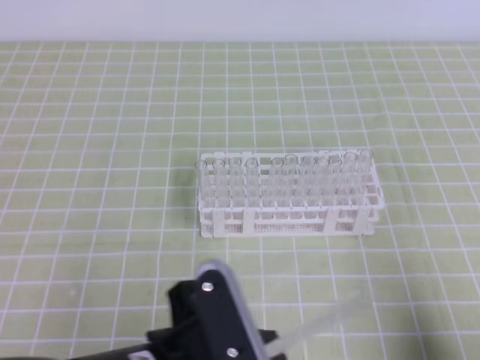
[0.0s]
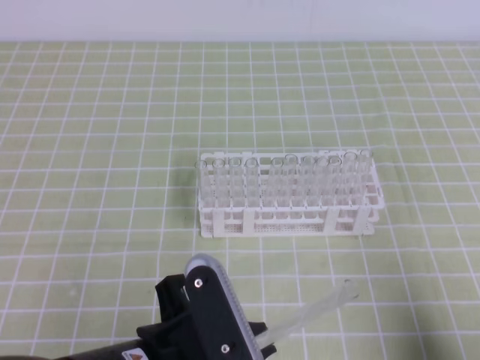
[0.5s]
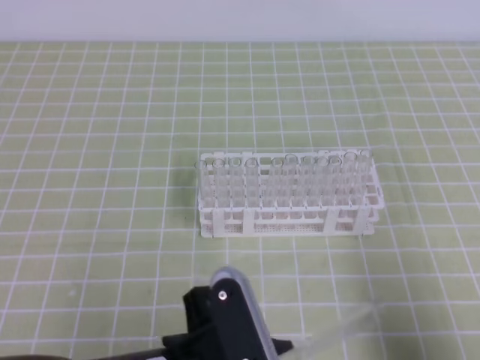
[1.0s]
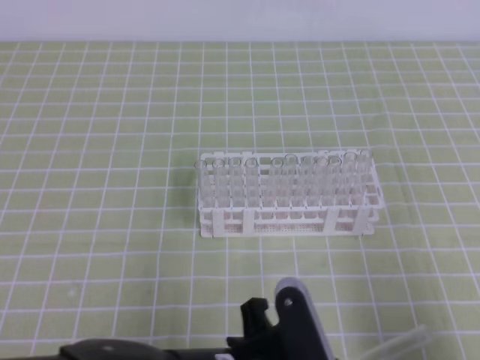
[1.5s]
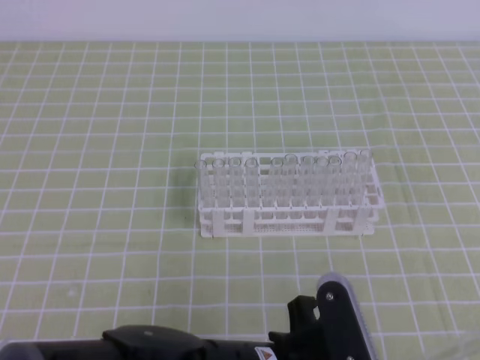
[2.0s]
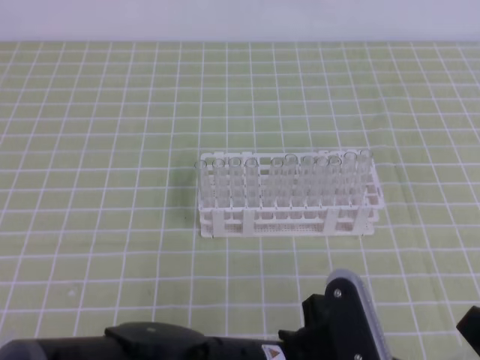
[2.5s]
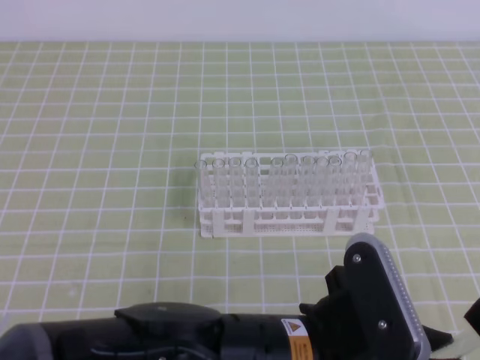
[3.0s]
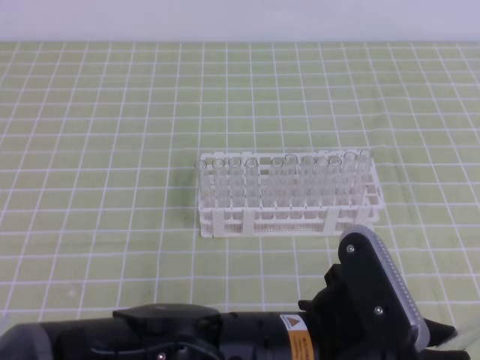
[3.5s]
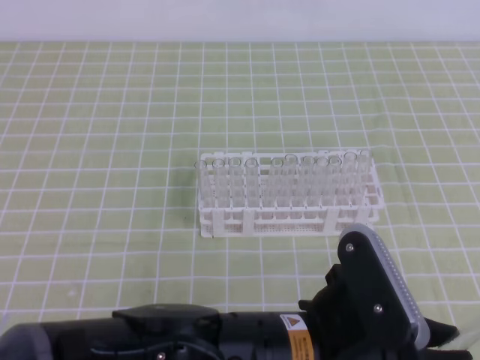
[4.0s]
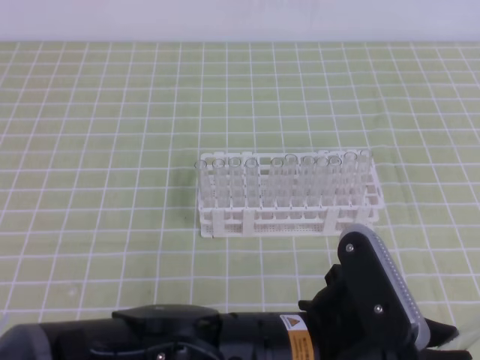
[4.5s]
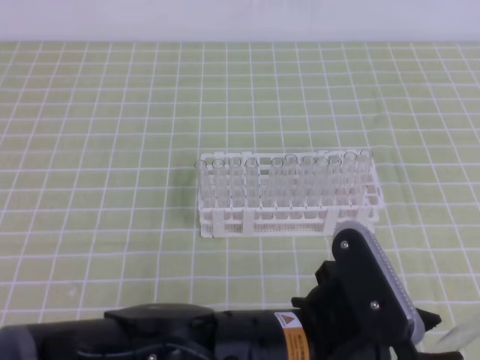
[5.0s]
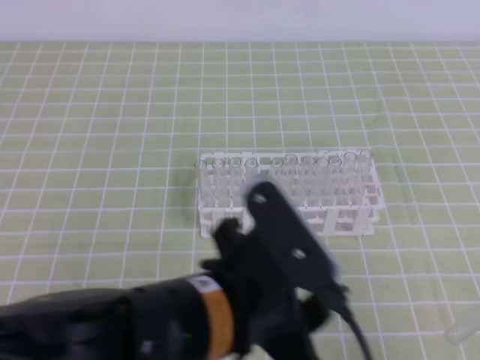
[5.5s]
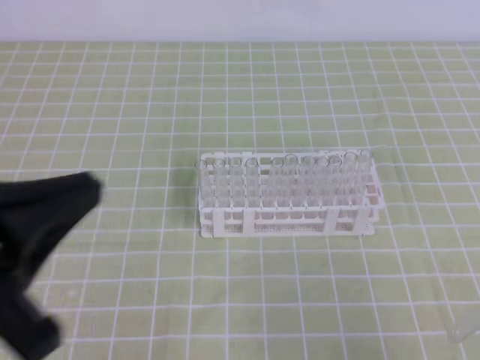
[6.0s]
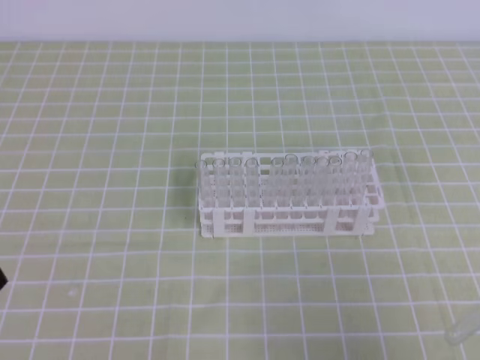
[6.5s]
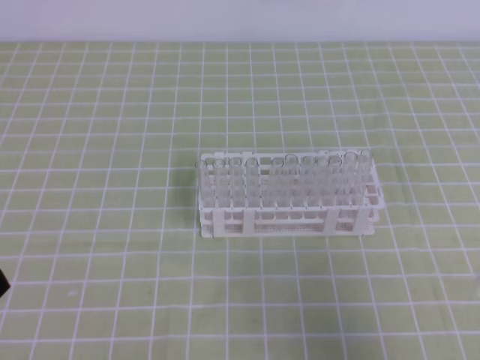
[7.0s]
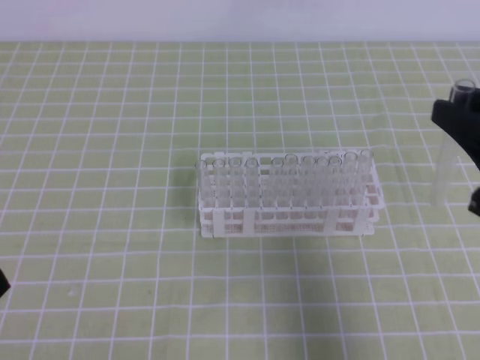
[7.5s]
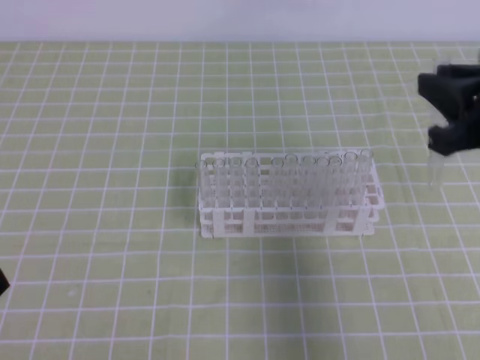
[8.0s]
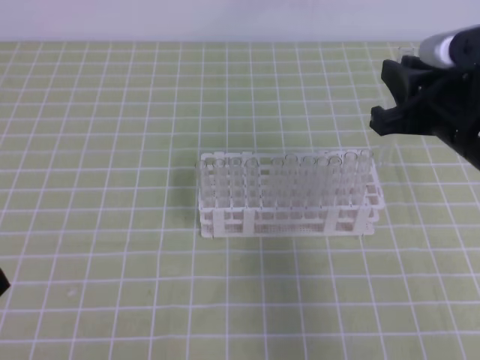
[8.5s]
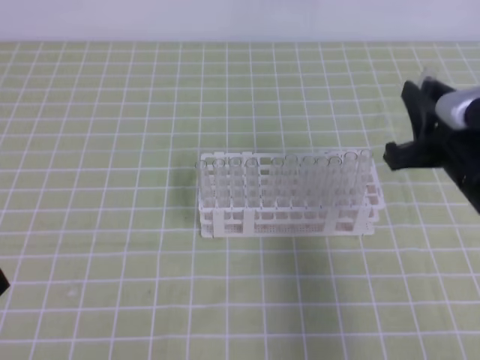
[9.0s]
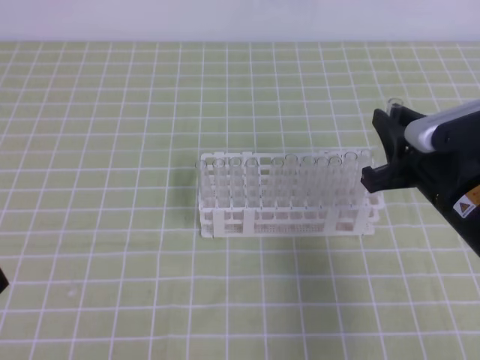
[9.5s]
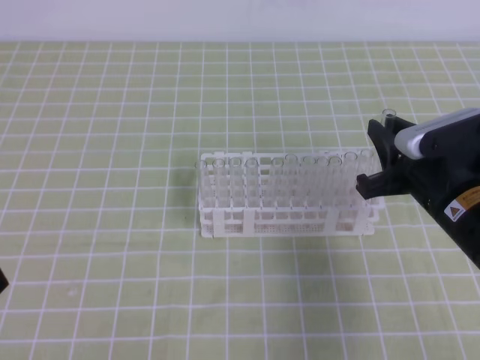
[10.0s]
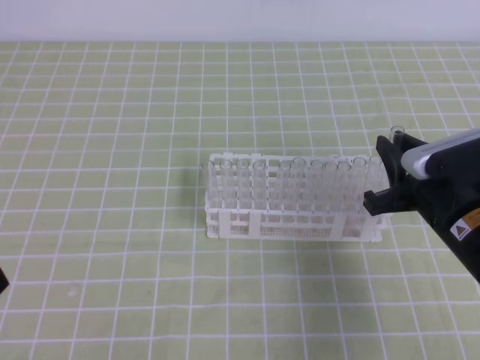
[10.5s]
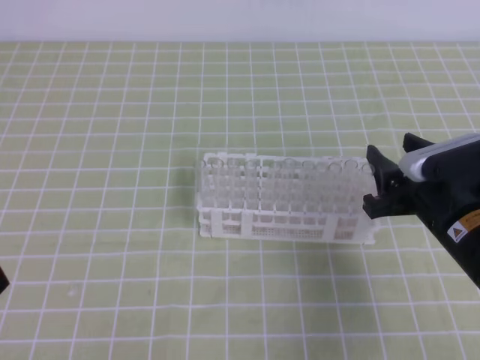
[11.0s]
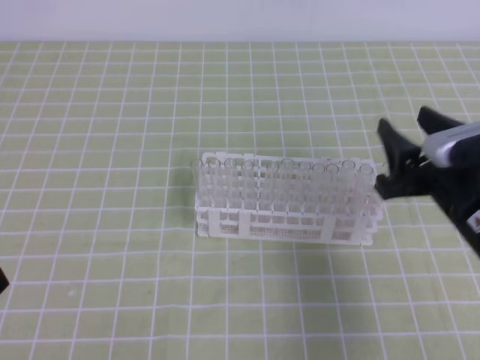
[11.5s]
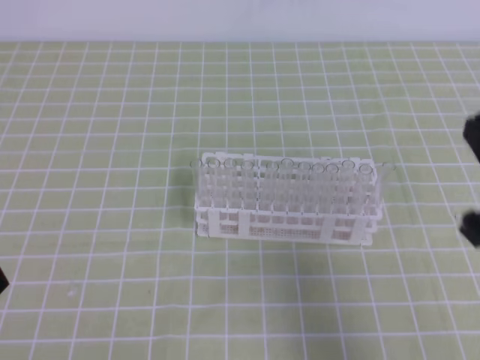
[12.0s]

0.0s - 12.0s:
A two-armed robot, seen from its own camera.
0.0s - 2.0s: The left gripper goes approximately 5 cm to the right. Meanwhile the right gripper moves upward, some 10 cm, and opens.
2.0s - 4.0s: The right gripper closes.
4.0s - 6.0s: The left gripper moves to the left and upward, about 25 cm, and opens, then closes again.
6.0s - 8.0s: The left gripper goes about 10 cm to the left and downward; the right gripper shifts roughly 20 cm forward.
8.0s - 10.0s: The right gripper moves downward, approximately 10 cm.
10.0s - 12.0s: The right gripper is displaced backward and upward by some 15 cm, and opens and closes again.

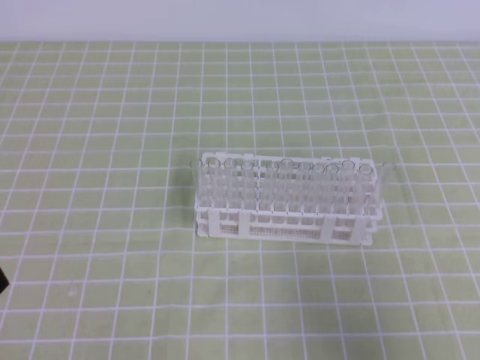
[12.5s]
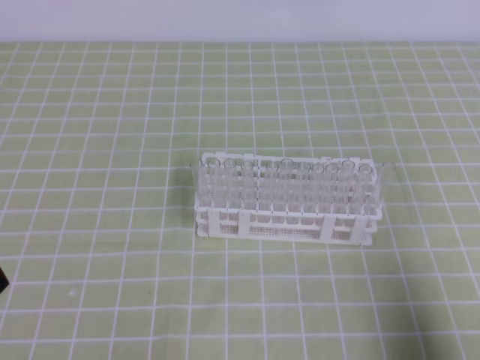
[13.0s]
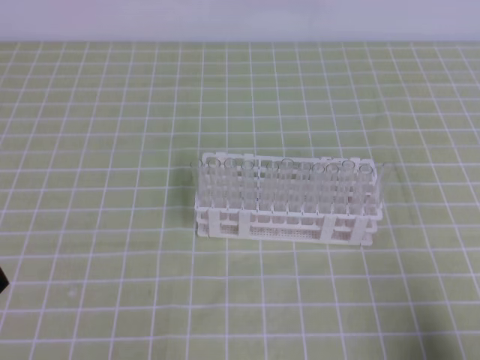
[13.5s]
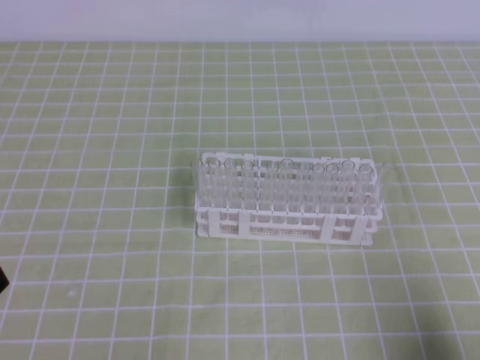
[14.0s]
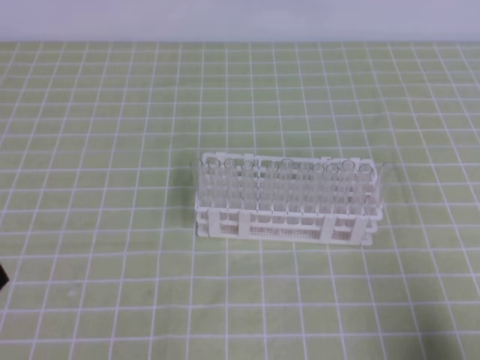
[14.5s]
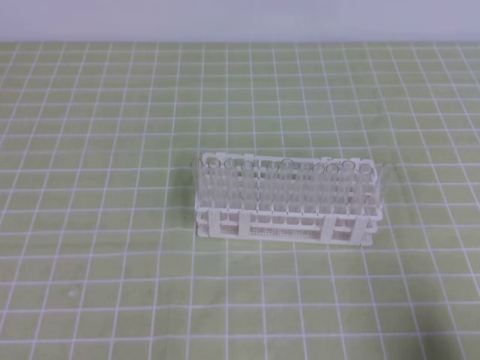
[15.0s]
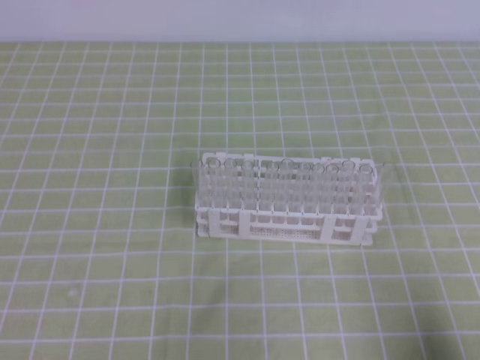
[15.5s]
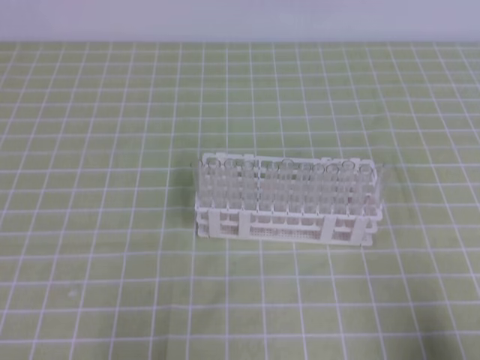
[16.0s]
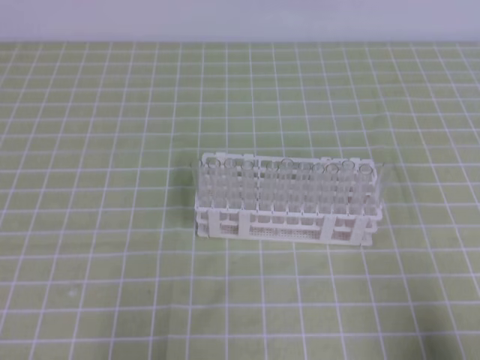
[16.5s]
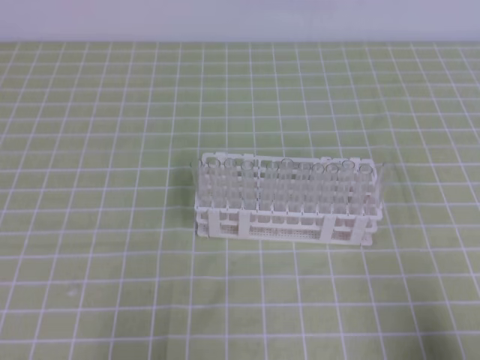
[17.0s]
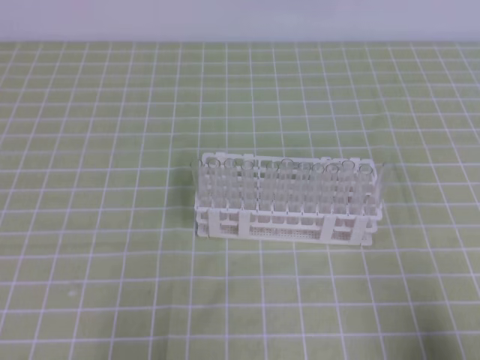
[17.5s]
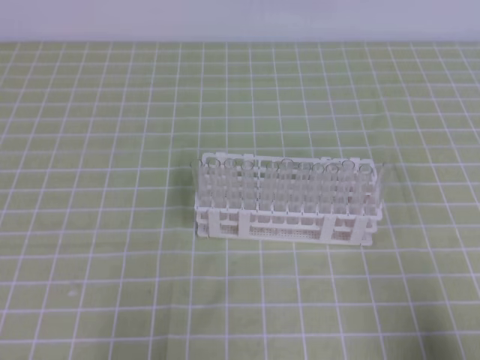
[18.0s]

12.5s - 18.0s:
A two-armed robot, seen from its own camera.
12.5s - 14.5s: The right gripper travels downward by some 10 cm.
16.0s - 18.0s: Neither gripper changes place.
